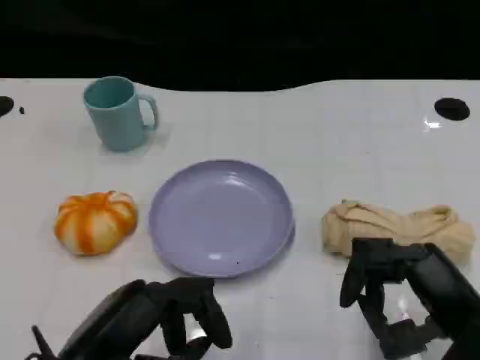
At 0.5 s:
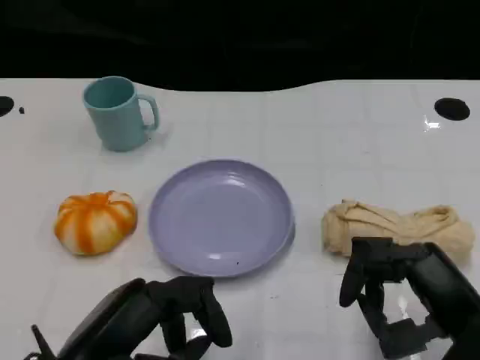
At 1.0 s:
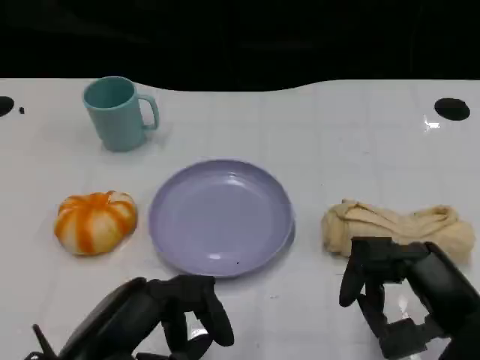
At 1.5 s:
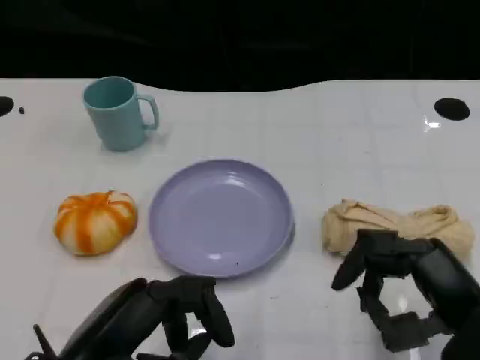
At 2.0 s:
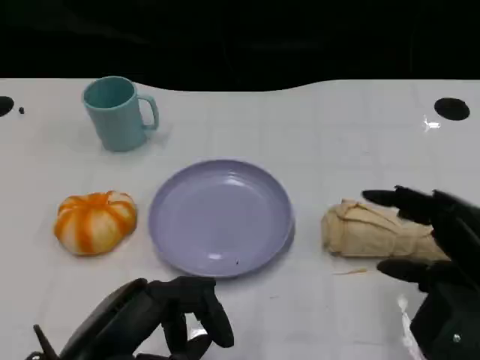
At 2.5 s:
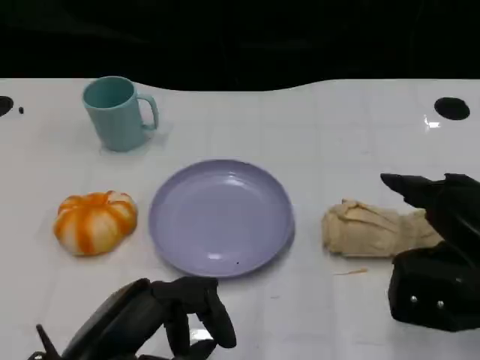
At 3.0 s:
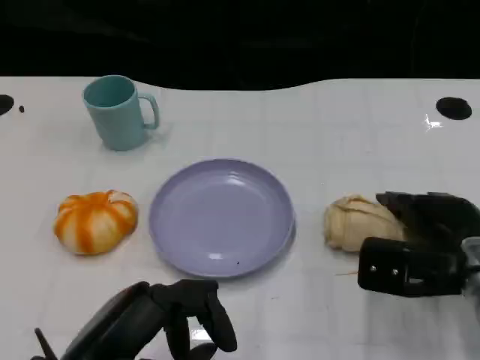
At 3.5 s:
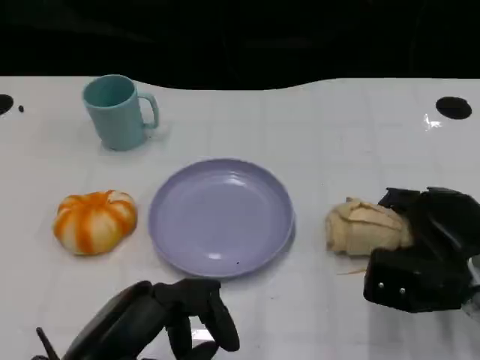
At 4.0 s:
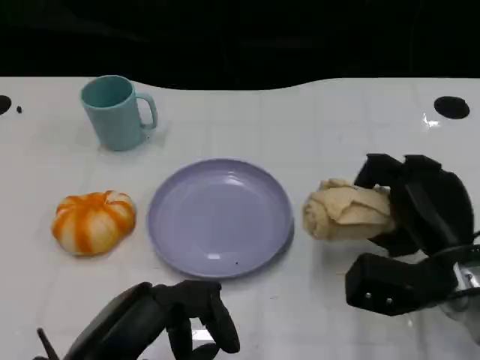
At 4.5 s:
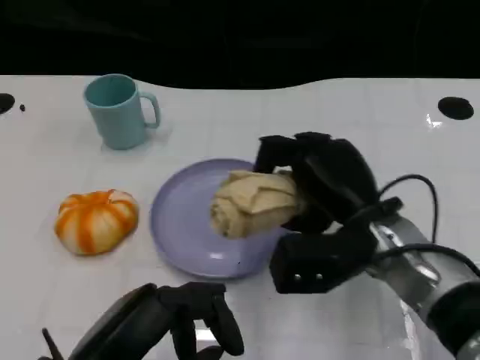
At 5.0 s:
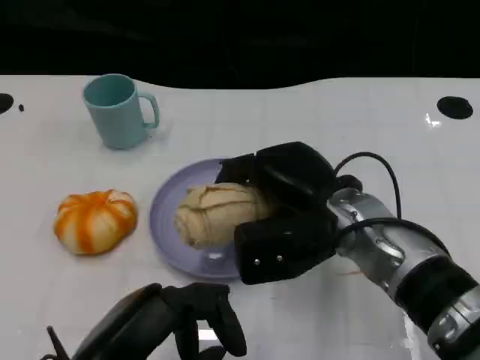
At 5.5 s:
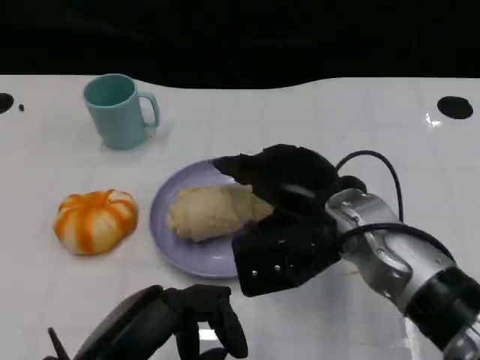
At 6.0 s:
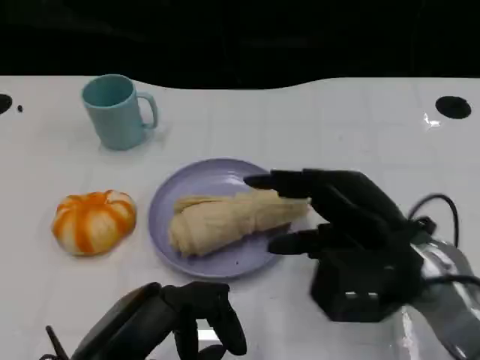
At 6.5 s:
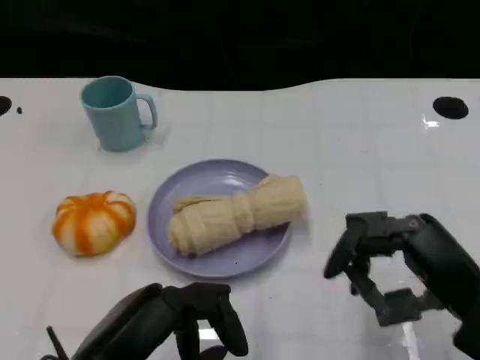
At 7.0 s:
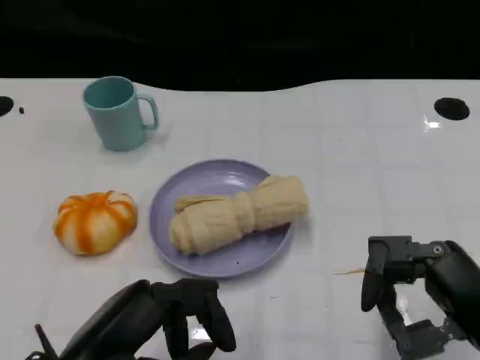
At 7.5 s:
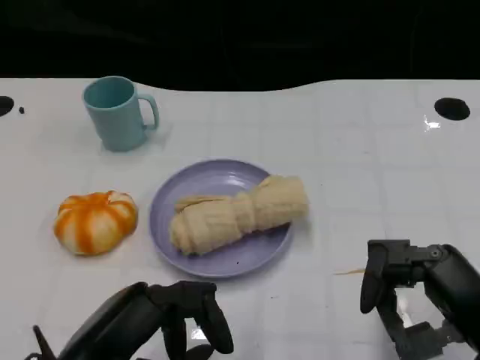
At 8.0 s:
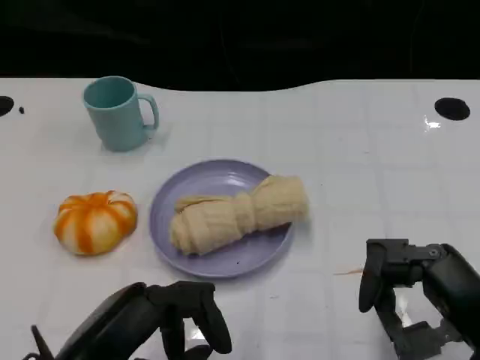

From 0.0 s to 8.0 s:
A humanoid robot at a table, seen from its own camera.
Task of the whole recording: Grasp the towel on the left side of the plate with the left hand and place it into the plate.
From 0.0 s to 2.0 s: The right hand changes place by about 5 cm.
From 2.0 s to 4.0 s: The right hand goes some 10 cm forward and downward.
From 4.0 s to 6.0 s: The right hand shifts about 5 cm upward, and goes to the left and returns, roughly 10 cm each way.
From 6.0 s to 8.0 s: The right hand moves backward and to the right, approximately 10 cm.

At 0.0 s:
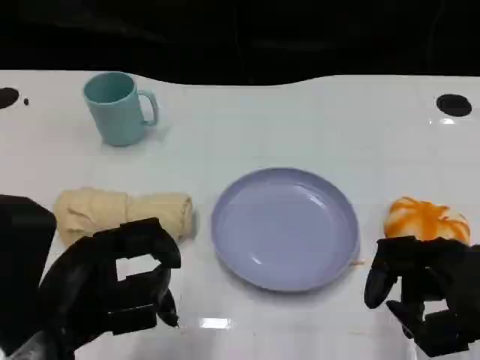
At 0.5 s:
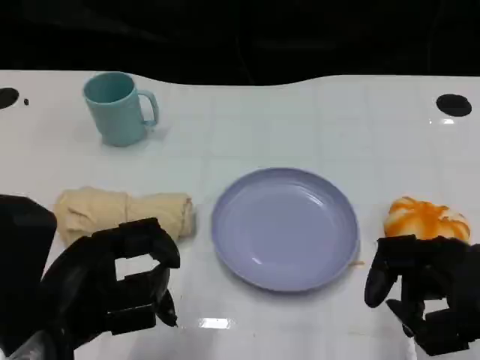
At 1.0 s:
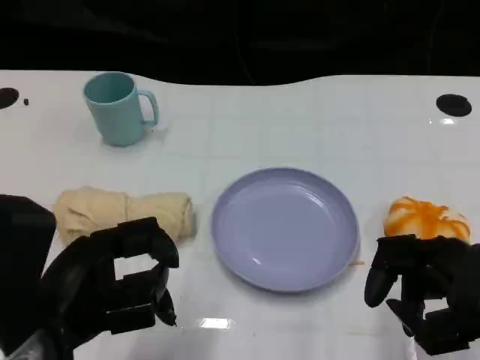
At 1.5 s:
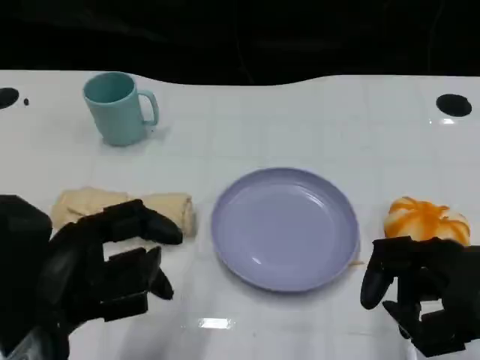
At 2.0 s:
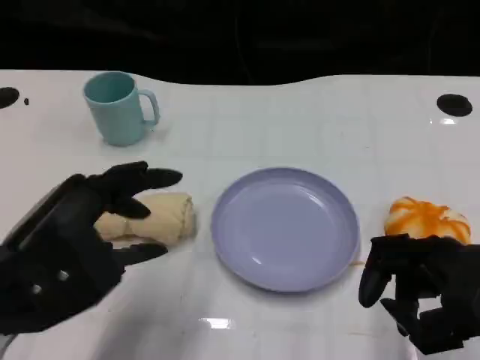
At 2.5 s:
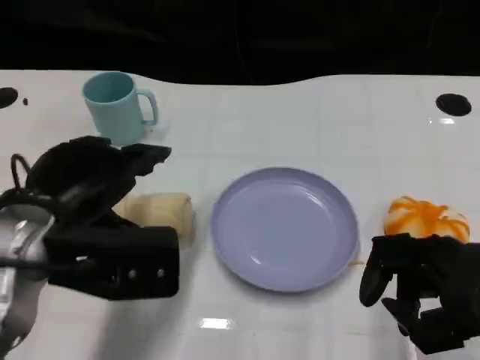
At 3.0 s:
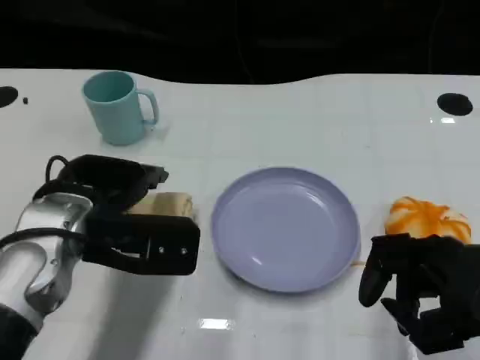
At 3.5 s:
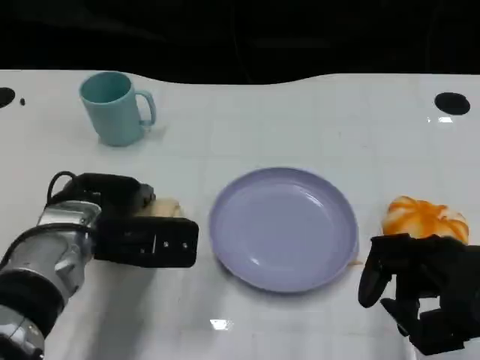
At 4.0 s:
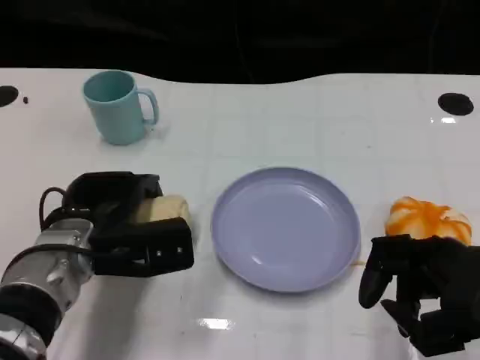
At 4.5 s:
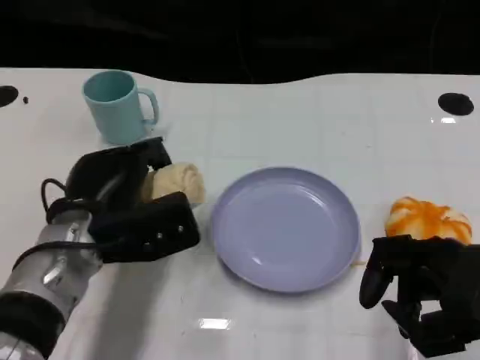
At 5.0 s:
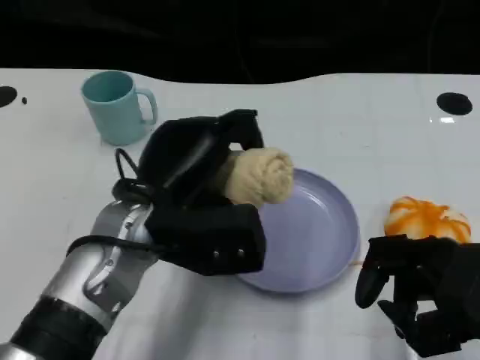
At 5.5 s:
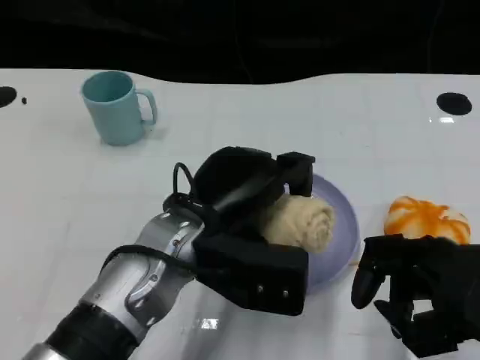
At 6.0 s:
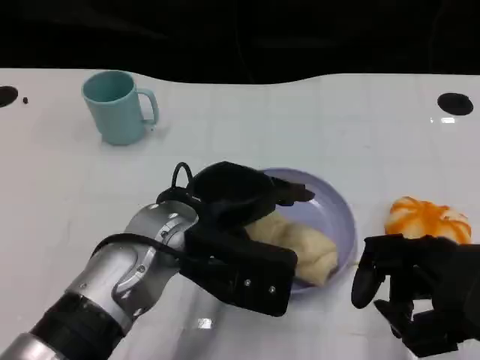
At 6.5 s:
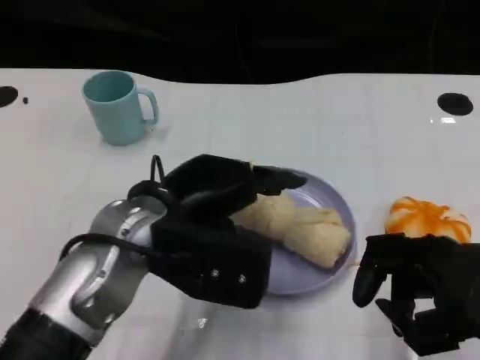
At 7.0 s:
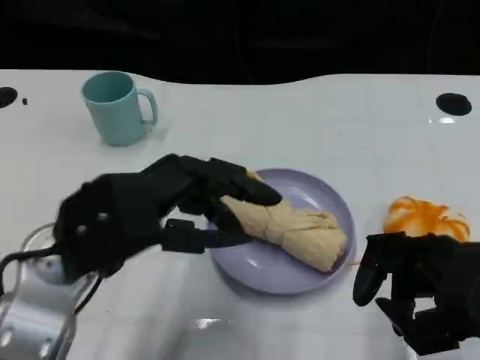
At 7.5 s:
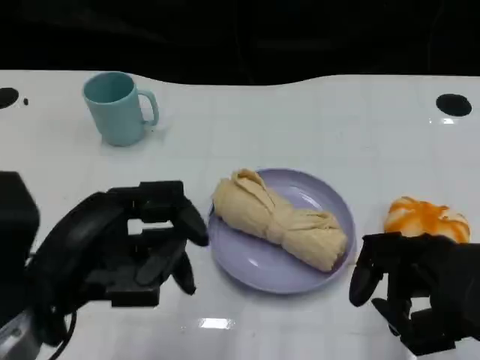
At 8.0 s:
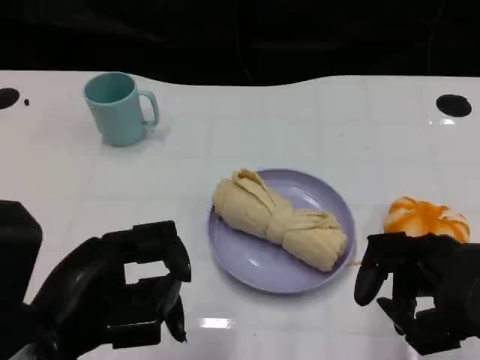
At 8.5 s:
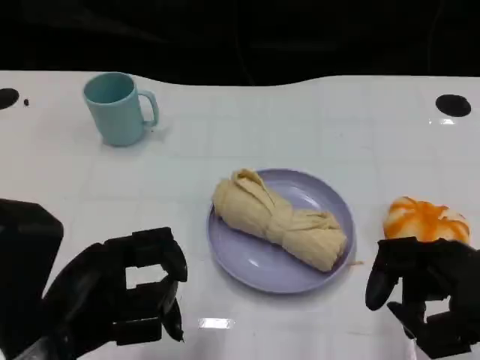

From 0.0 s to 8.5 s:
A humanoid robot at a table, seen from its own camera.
Task of the whole recording: Grasp the towel on the left side of the plate with the left hand and place it into the plate.
From 2.0 s to 4.0 s: The left hand travels forward and downward by roughly 15 cm.
From 4.0 s to 6.5 s: The left hand is displaced upward and to the right by roughly 10 cm.
From 6.5 s to 8.5 s: The left hand travels backward and to the left by some 15 cm.
